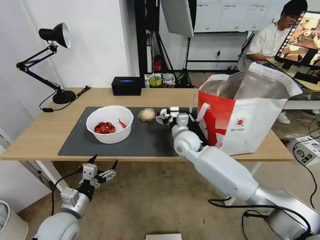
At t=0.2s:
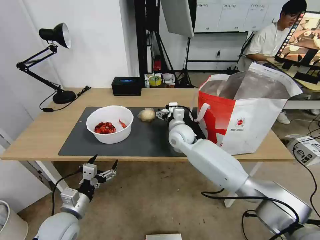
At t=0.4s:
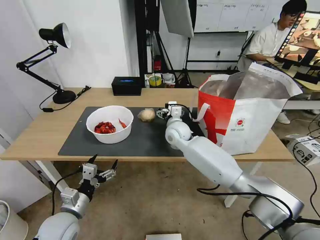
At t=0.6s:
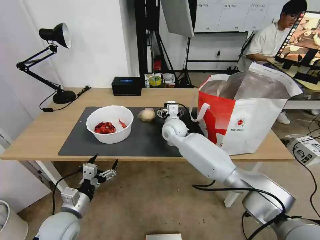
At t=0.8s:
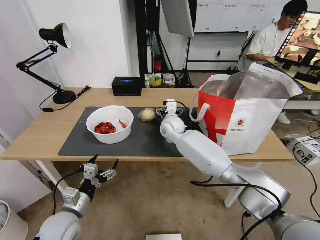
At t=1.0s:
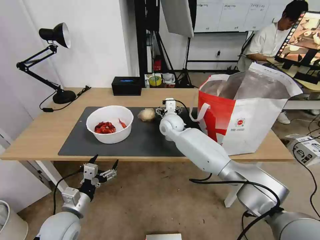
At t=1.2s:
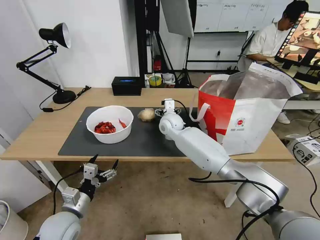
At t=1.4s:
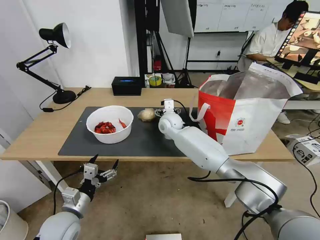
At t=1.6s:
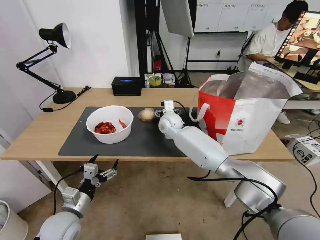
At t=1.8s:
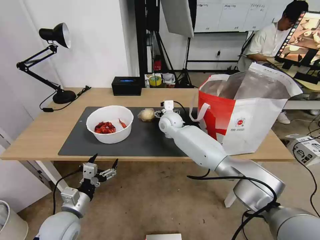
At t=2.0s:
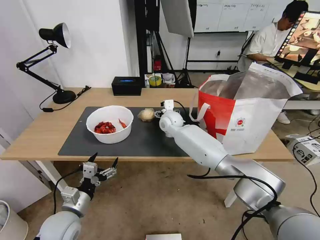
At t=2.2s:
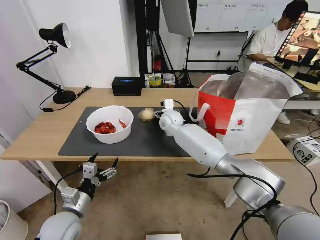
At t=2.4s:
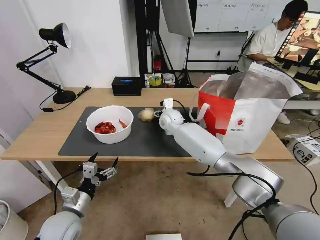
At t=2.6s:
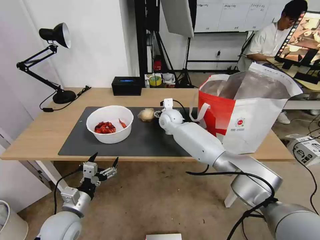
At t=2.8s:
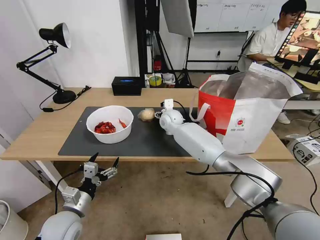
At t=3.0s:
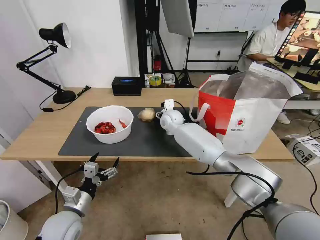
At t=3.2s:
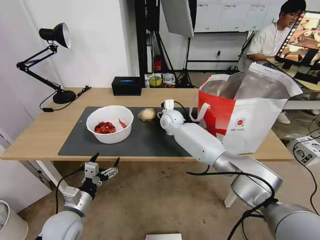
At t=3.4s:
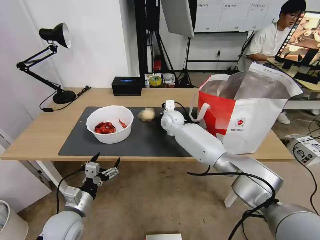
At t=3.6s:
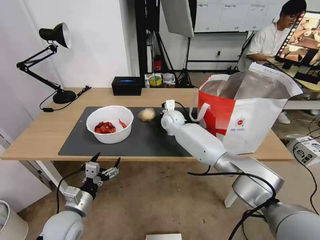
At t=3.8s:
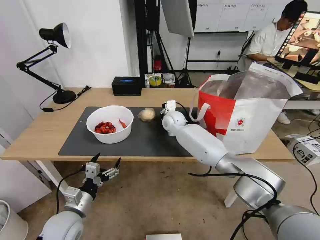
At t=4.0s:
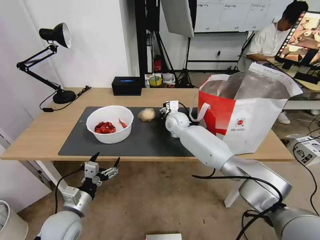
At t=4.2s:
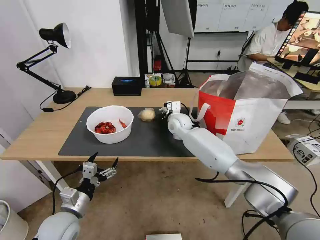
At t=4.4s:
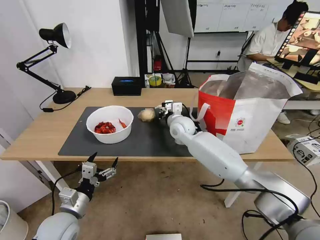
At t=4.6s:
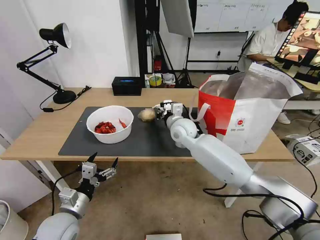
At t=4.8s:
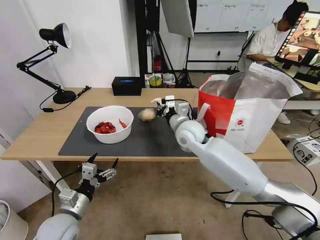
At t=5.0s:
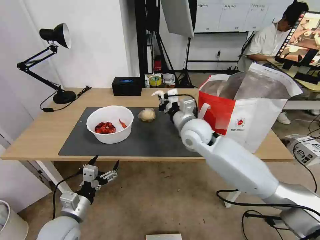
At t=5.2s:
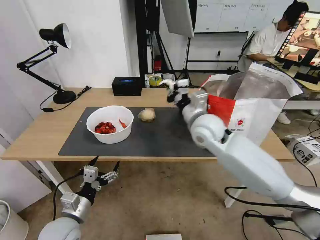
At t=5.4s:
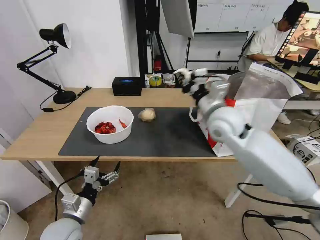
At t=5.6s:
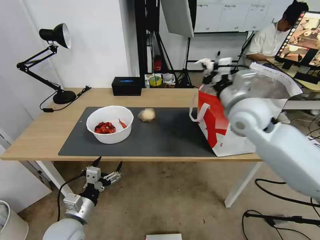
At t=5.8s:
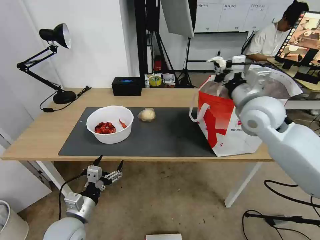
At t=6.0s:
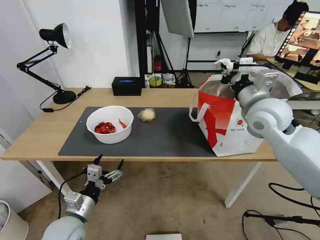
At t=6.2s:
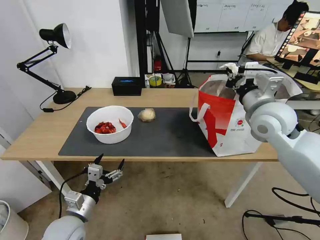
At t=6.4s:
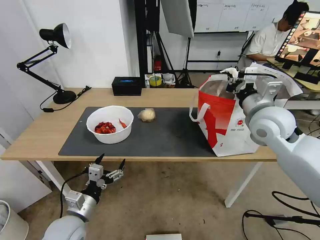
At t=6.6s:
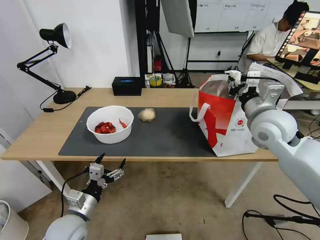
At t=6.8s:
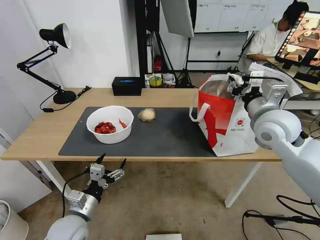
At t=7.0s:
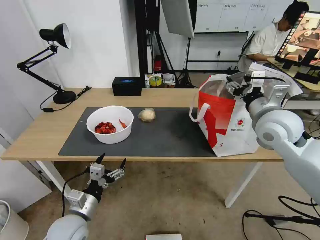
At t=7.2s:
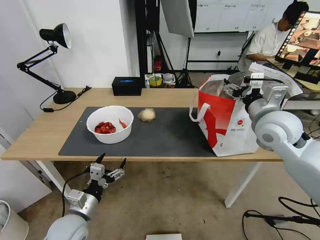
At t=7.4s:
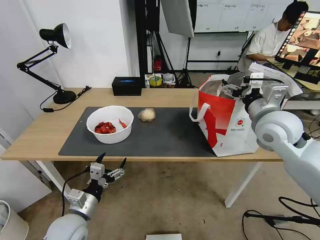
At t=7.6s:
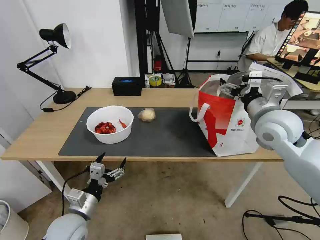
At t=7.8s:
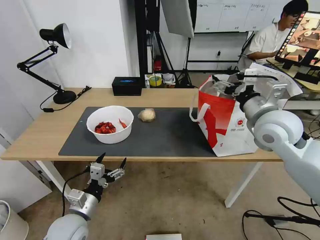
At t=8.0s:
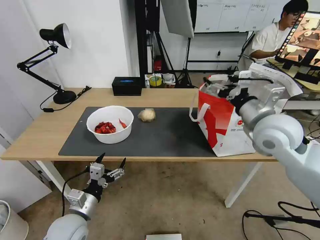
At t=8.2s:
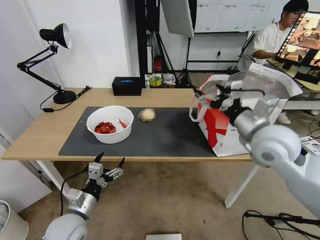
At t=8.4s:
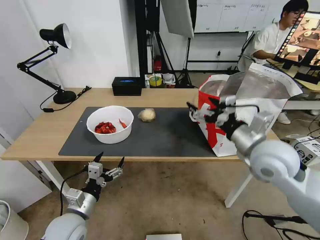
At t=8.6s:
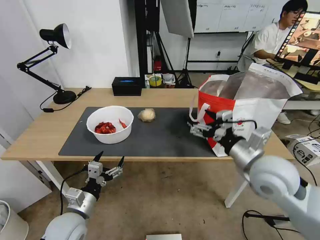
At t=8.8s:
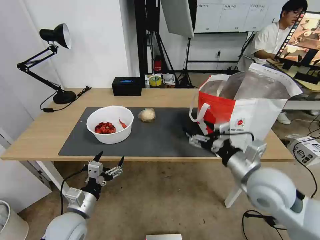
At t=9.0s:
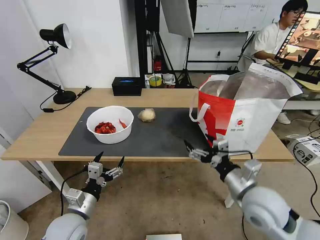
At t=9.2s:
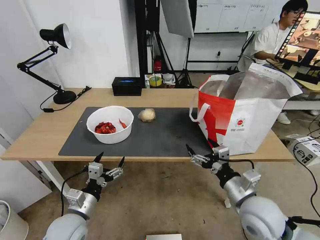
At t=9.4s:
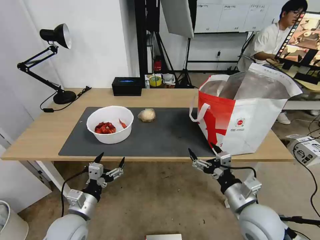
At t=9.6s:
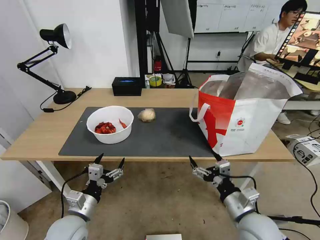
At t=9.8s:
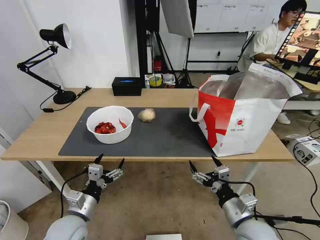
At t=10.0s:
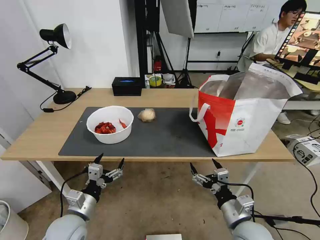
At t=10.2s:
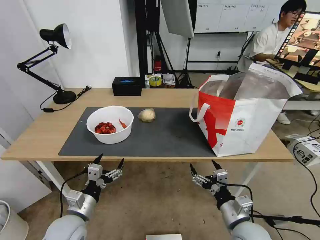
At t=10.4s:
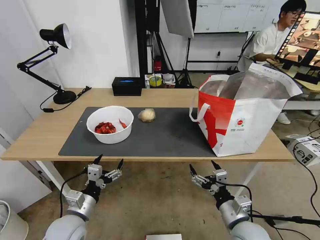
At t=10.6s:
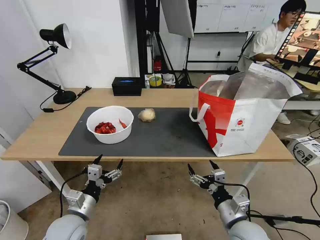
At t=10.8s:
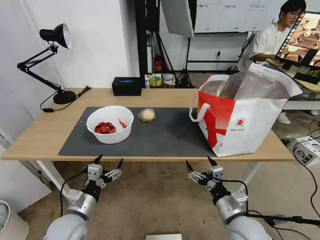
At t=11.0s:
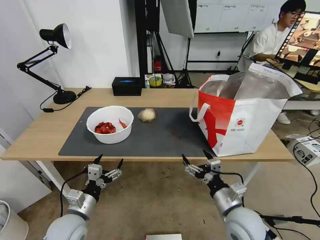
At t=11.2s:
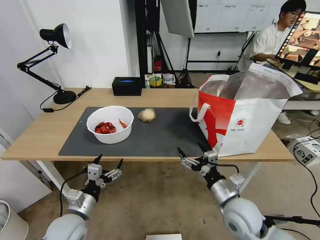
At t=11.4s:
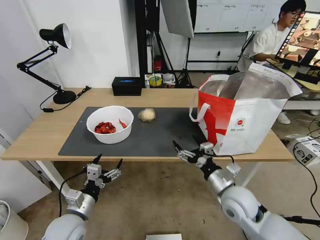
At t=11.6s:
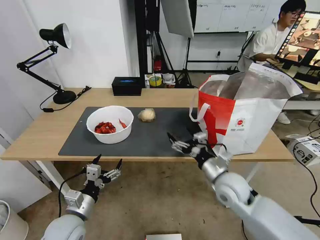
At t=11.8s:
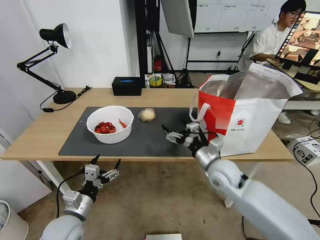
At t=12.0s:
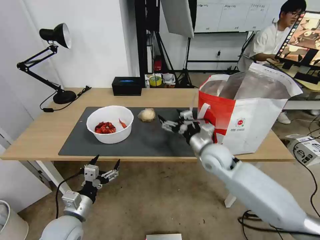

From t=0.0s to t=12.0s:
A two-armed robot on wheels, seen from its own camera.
Task of the whole recording: Pick up the trash from the table and place it into the takeout bag.
From t=0.0s to t=1.6s: The right gripper heads forward and to the left, covering some 10 cm.
From t=1.6s to t=3.0s: The grippers make only small movements.
From t=3.0s to t=4.4s: The right gripper moves backward, about 5 cm, and closes.
From t=4.4s to t=6.0s: The right gripper shifts roughly 30 cm to the right, upward and backward.
From t=6.0s to t=7.6s: The right gripper opens.
From t=7.6s to t=9.0s: The right gripper moves backward and downward, about 20 cm.
From t=9.0s to t=10.4s: The right gripper travels downward and backward by about 10 cm.
From t=10.4s to t=12.0s: The right gripper travels forward by roughly 20 cm.

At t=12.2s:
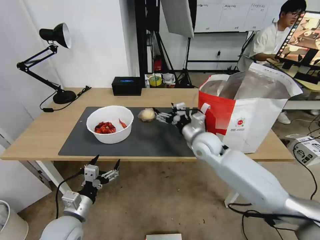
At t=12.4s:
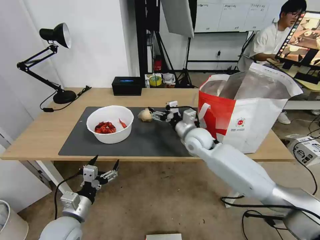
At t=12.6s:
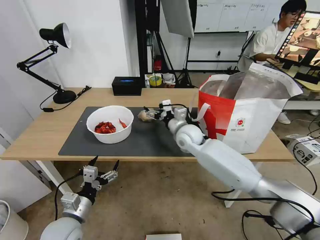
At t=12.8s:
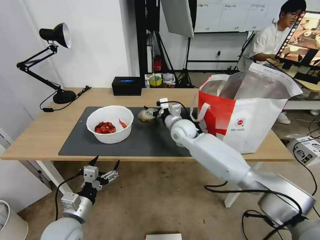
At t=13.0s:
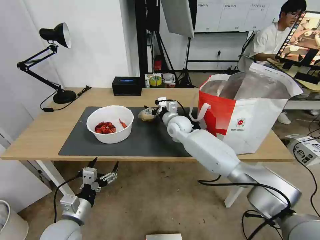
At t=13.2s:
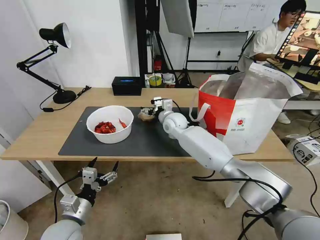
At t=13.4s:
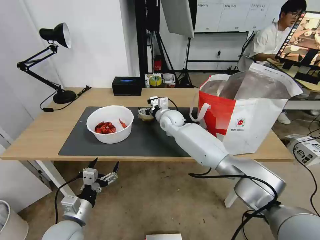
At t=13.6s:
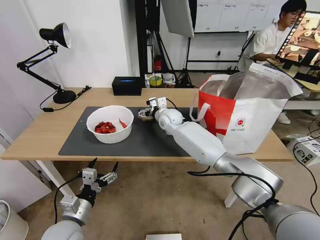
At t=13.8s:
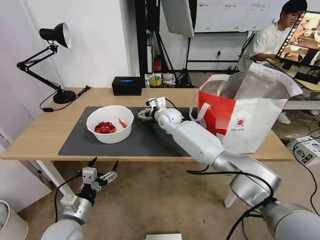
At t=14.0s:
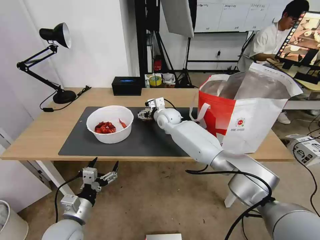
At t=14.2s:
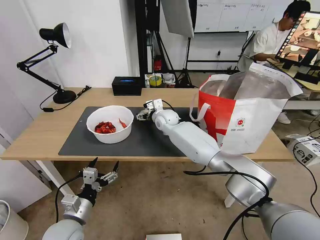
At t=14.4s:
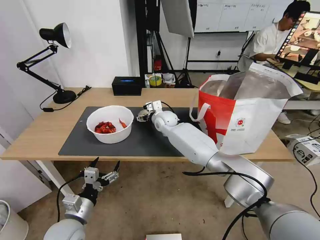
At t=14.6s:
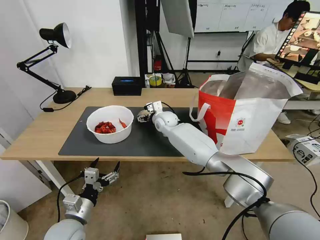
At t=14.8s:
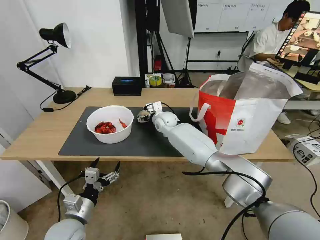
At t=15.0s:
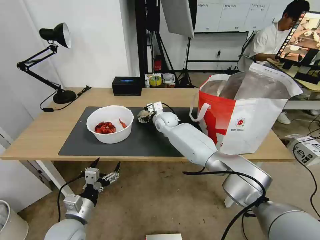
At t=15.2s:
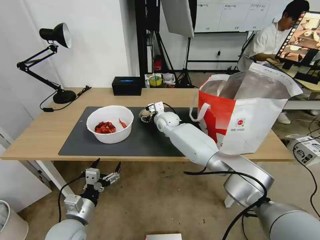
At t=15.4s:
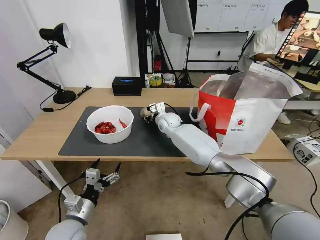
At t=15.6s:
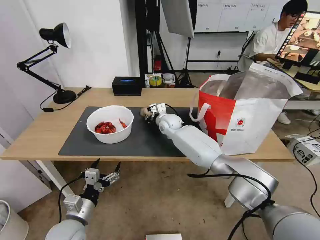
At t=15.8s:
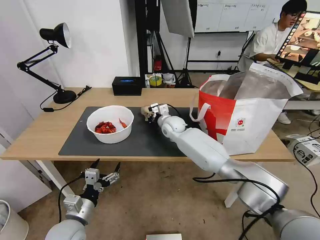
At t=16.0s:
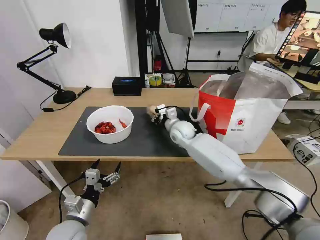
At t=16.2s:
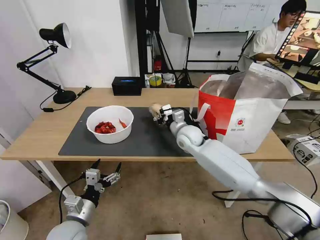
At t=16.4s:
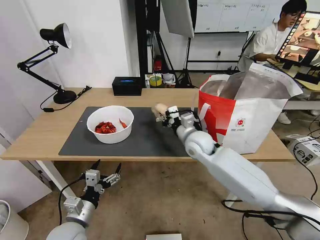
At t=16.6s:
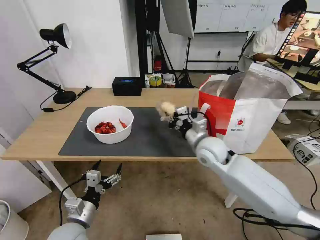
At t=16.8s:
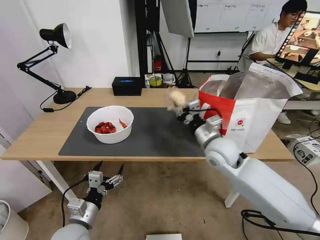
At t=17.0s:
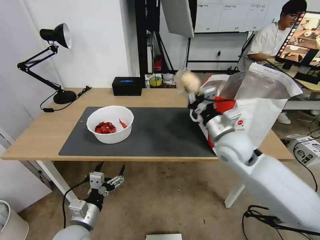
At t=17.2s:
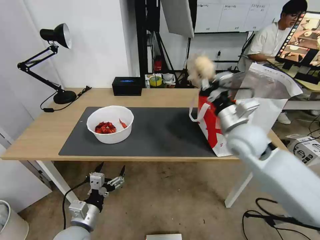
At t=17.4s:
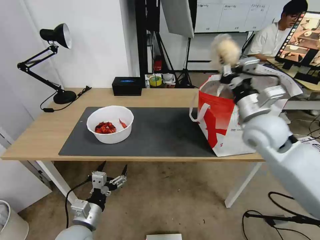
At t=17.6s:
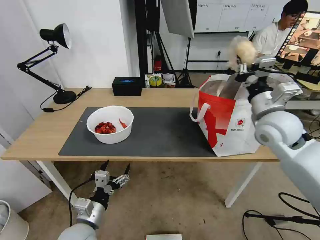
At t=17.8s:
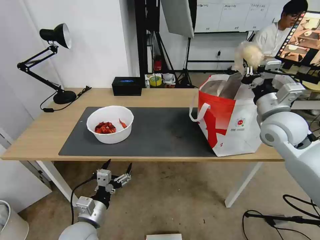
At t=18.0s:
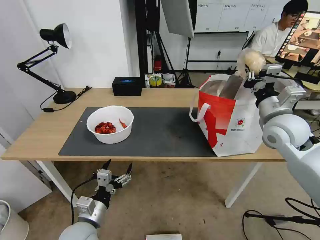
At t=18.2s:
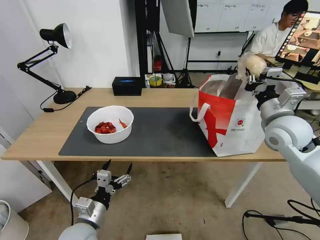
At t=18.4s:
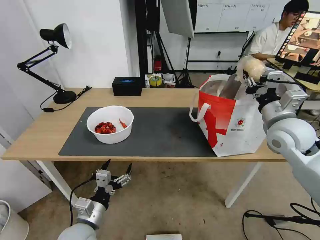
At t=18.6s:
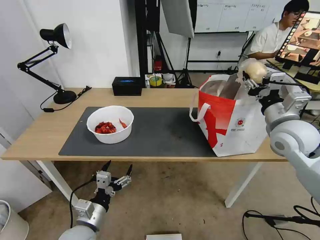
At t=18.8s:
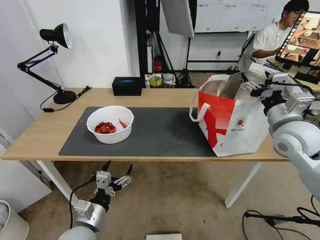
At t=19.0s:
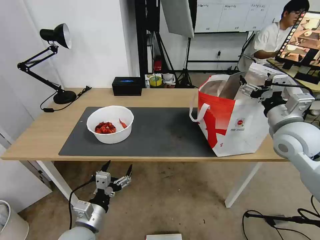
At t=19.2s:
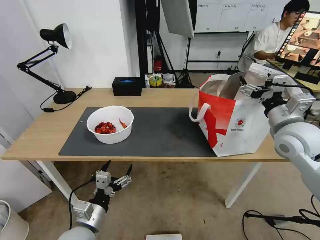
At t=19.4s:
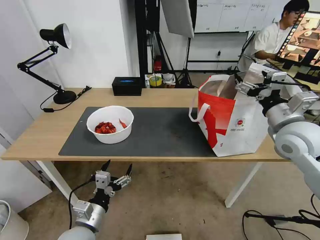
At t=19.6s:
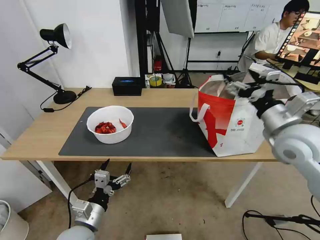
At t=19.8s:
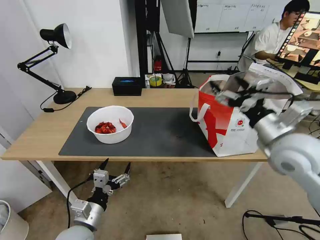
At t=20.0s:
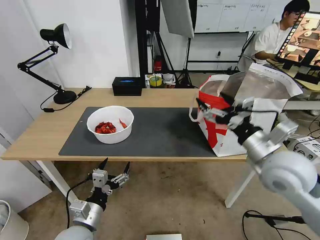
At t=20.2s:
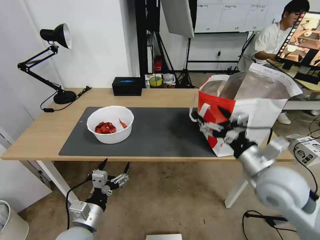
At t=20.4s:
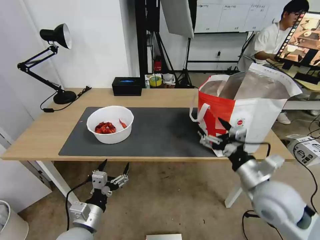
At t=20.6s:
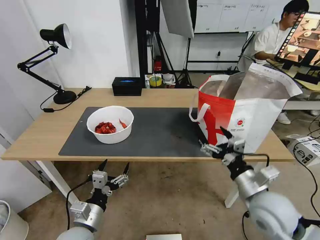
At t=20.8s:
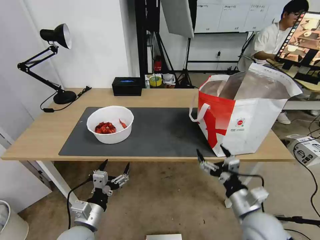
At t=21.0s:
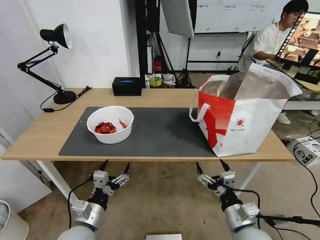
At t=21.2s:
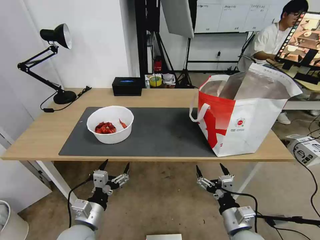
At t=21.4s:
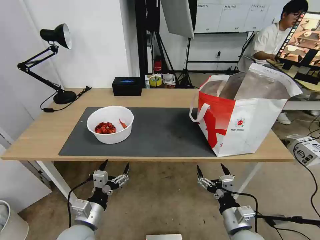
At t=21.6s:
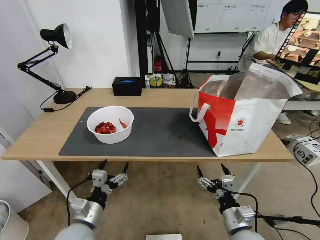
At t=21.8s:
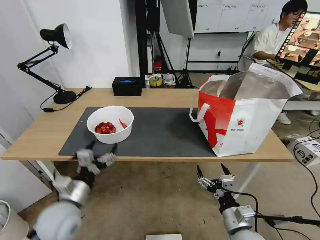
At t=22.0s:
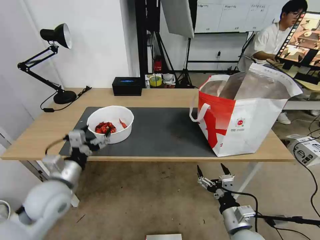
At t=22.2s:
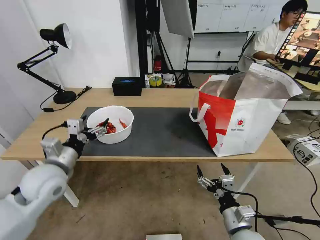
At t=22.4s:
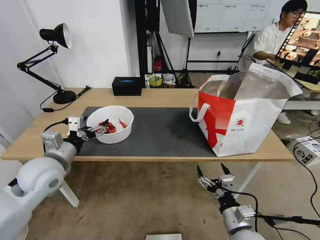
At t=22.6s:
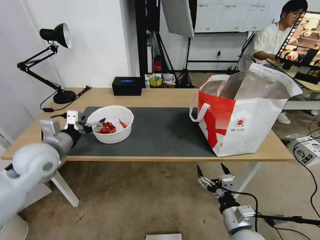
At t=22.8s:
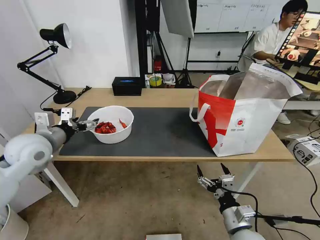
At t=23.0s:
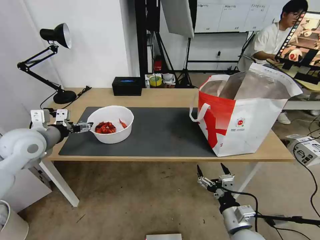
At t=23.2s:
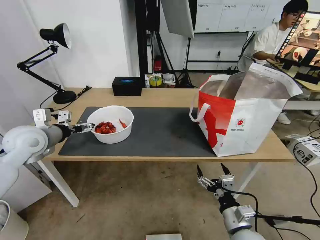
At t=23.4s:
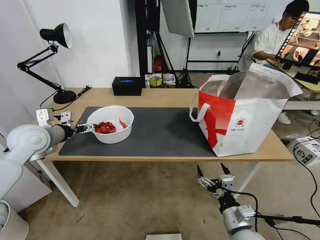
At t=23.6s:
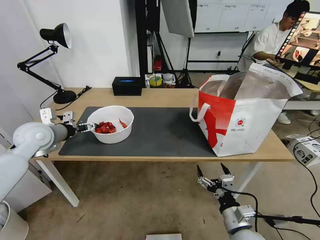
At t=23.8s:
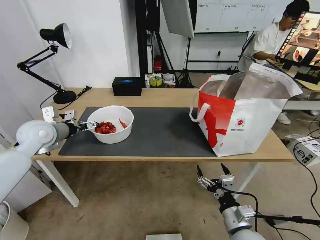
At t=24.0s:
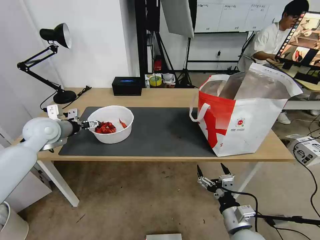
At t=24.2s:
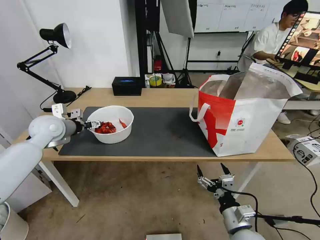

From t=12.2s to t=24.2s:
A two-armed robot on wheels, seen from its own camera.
Task of the whole recording: Pick up the trash from the table and place it into the takeout bag.
From t=12.2s to t=13.8s: The right gripper moves forward and to the left, approximately 20 cm.
From t=13.8s to t=15.2s: The grippers stay close to where they were, moving slightly.
From t=15.2s to t=16.6s: The right gripper is displaced backward and to the right by some 20 cm, and closes up.
From t=16.6s to t=18.2s: The right gripper goes roughly 20 cm to the right and upward.
From t=18.2s to t=19.8s: The right gripper moves backward, some 5 cm, and opens.
From t=19.8s to t=21.2s: The right gripper moves downward and backward, about 30 cm.
From t=21.2s to t=22.6s: The left gripper moves upward, forward and to the left, about 25 cm.
From t=22.6s to t=24.2s: The left gripper moves forward, roughly 10 cm.
